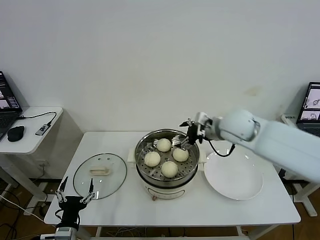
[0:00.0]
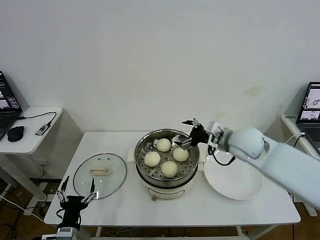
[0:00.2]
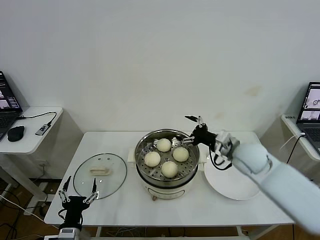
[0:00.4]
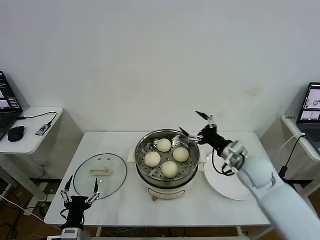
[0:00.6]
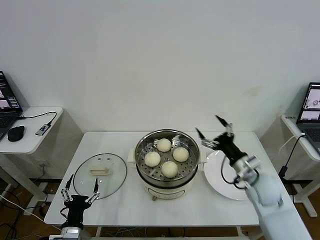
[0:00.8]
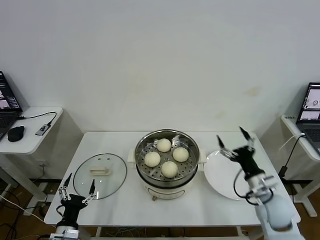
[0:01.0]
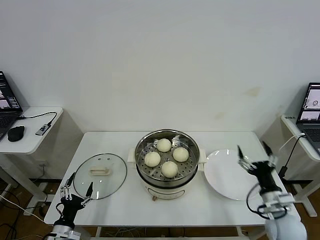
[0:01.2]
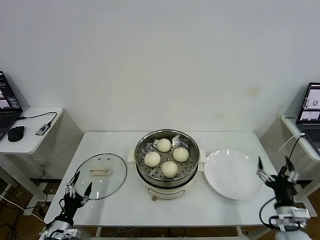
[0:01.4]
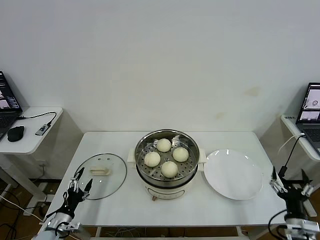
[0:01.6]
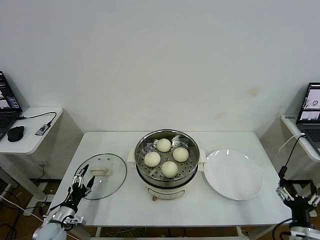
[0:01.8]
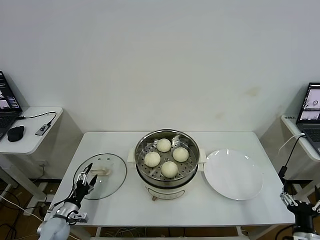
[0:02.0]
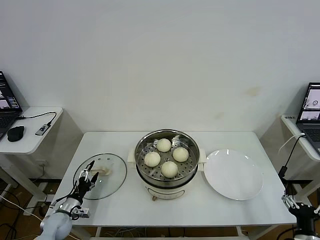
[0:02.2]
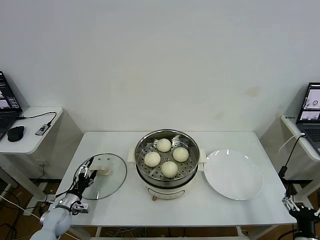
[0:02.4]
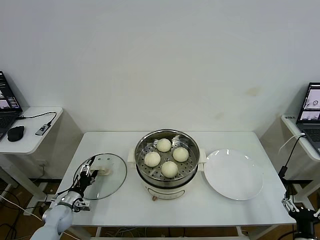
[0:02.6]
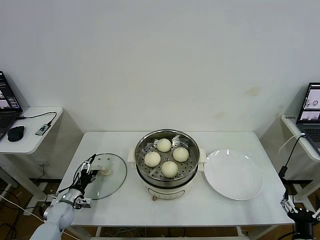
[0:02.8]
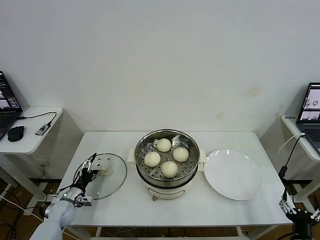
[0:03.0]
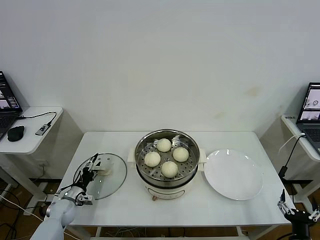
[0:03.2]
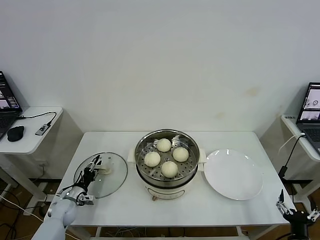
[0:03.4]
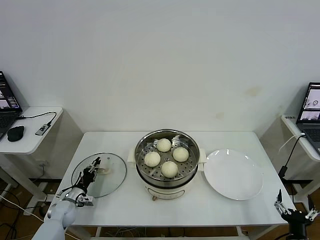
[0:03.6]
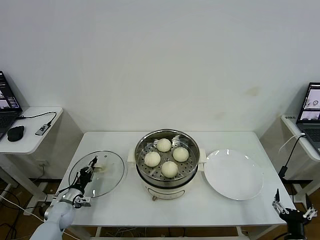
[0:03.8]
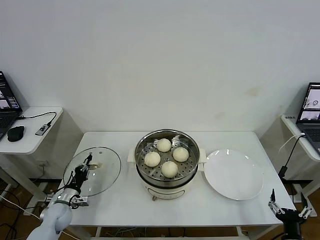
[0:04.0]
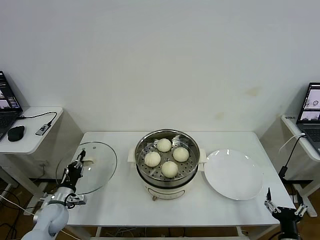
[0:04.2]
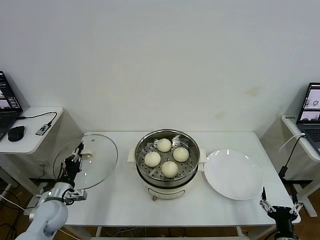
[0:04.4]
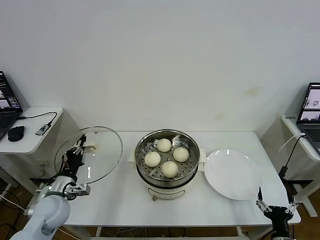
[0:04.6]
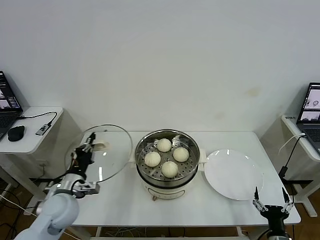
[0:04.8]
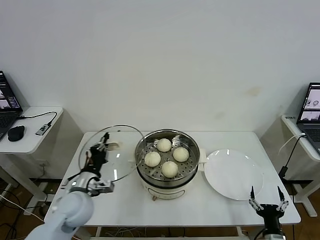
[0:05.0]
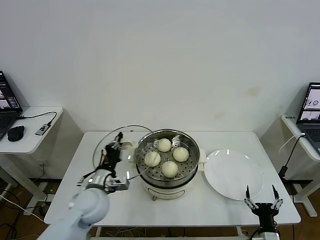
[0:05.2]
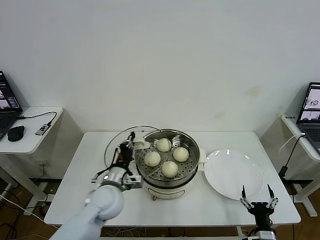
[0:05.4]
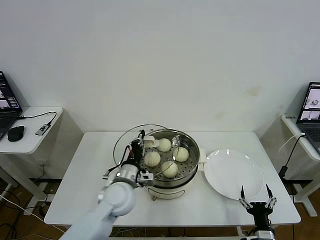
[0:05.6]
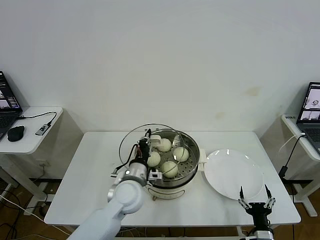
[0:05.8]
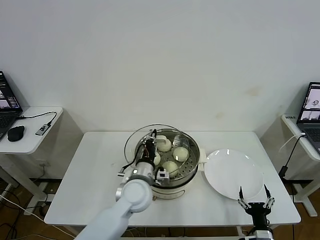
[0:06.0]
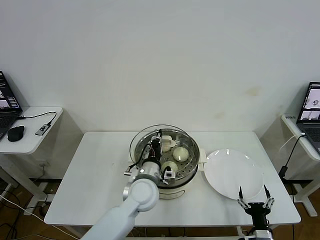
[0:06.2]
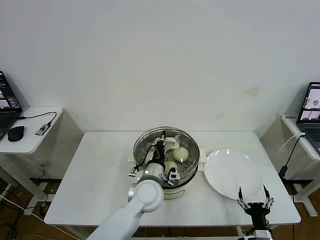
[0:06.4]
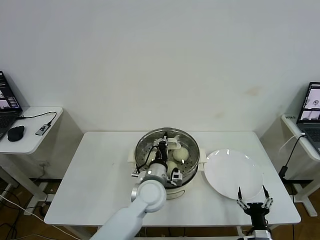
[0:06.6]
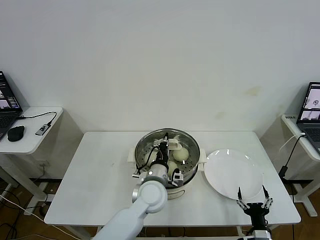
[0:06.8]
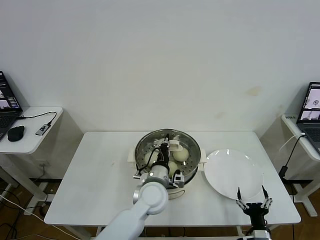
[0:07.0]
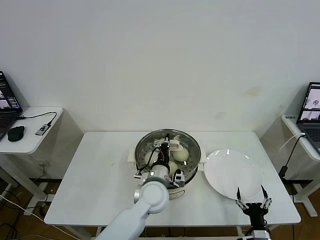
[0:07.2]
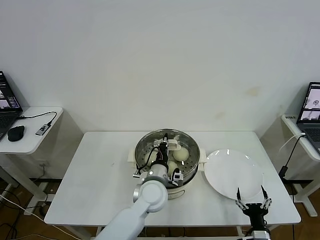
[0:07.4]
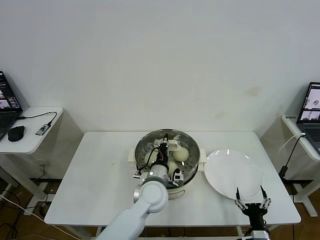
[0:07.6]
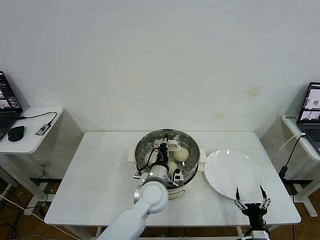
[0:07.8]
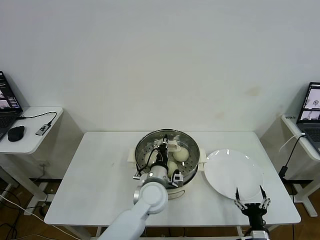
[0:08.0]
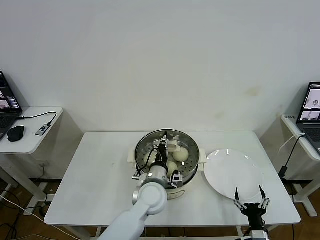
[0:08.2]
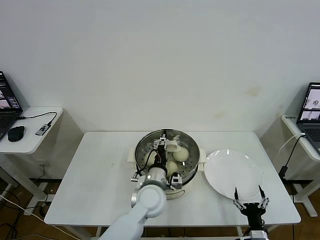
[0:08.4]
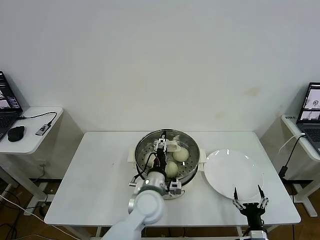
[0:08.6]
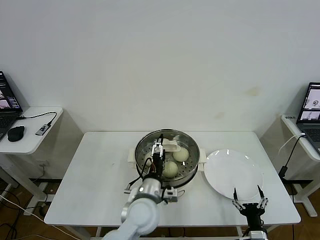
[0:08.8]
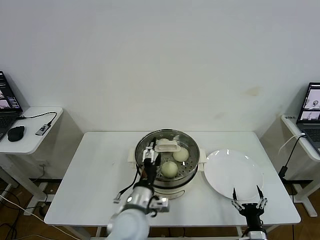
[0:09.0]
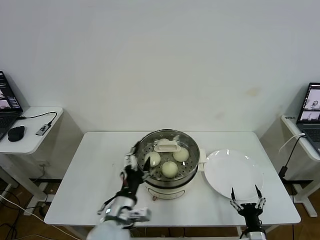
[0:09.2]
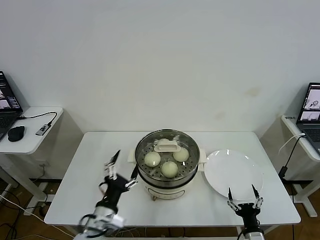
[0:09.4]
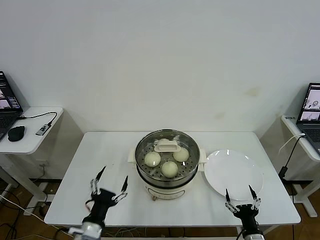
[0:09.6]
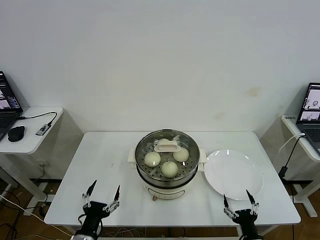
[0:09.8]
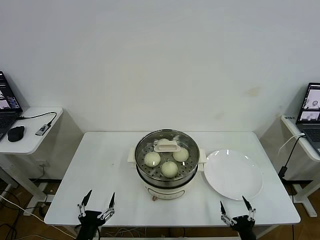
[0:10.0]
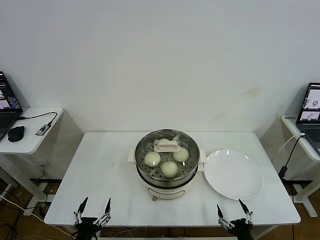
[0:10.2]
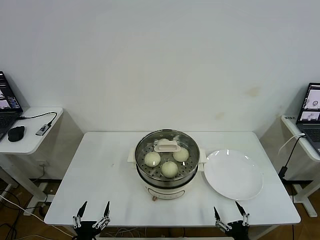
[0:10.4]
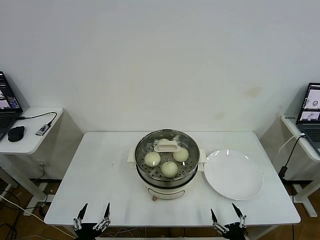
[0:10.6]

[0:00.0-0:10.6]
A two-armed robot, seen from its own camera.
Task of the whole recording: take steamed baozi put them in steamer then cover it.
Step, 0:00.0 to 0:03.8: Grasp the pot lid with left gripper.
Step, 0:04.0 to 0:08.4: Place the pot lid on the steamer with left gripper.
0:00.0 to 0:01.6: The left gripper goes roughly 10 cm to the left, downward and forward; the right gripper moves backward, downward and to the right, about 40 cm.
0:01.6 to 0:03.0: The right gripper is displaced backward by approximately 5 cm. Meanwhile the left gripper heads forward, covering approximately 15 cm.
0:03.0 to 0:04.6: The left gripper shifts roughly 15 cm upward, and closes up.
0:04.6 to 0:06.0: The right gripper moves about 5 cm. Meanwhile the left gripper moves to the right, about 25 cm.
0:06.0 to 0:07.6: The left gripper travels to the right by some 5 cm.
0:07.6 to 0:09.0: The left gripper shifts roughly 10 cm backward, and opens up.
0:09.0 to 0:10.6: The right gripper goes some 5 cm backward, while the left gripper is displaced to the left, backward and downward by about 30 cm.

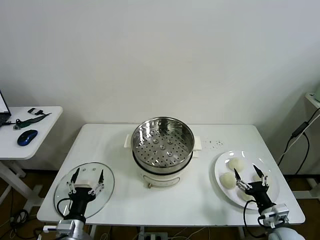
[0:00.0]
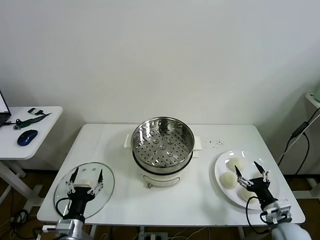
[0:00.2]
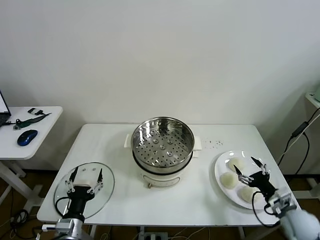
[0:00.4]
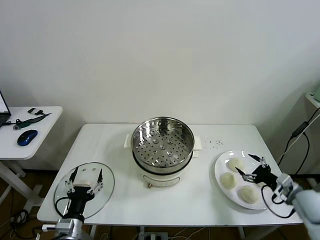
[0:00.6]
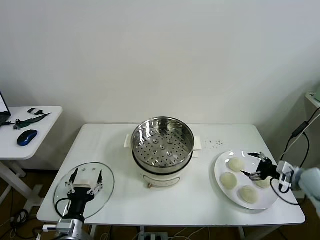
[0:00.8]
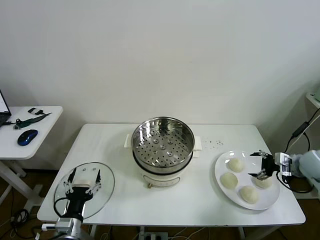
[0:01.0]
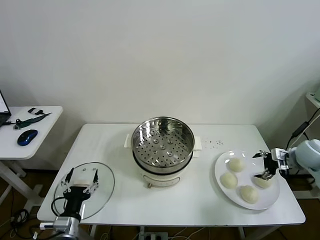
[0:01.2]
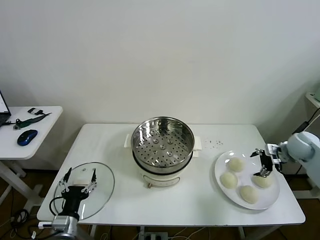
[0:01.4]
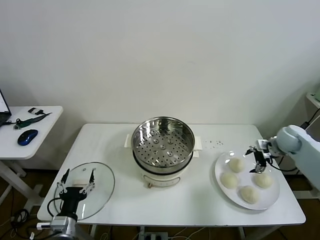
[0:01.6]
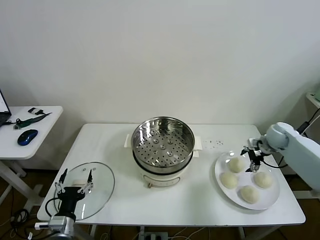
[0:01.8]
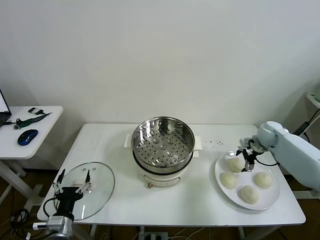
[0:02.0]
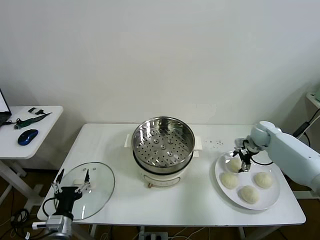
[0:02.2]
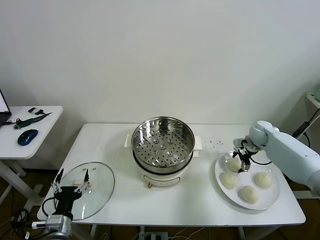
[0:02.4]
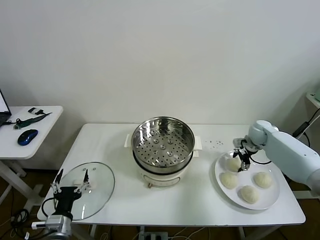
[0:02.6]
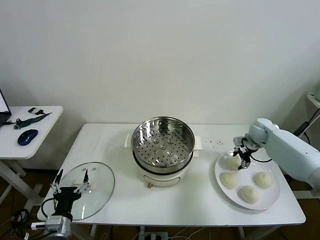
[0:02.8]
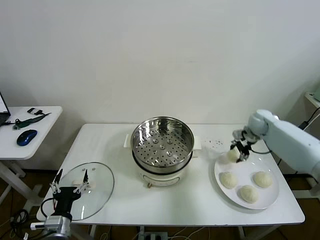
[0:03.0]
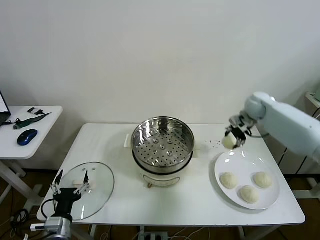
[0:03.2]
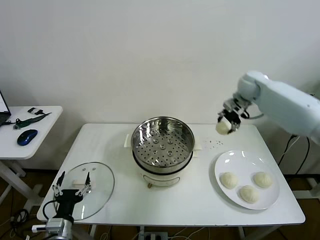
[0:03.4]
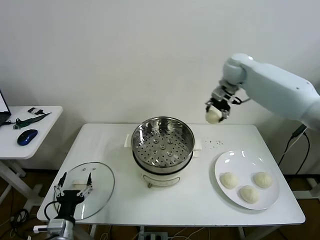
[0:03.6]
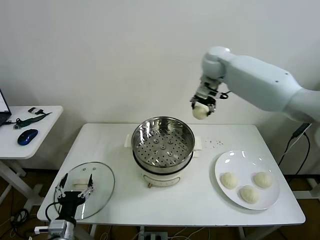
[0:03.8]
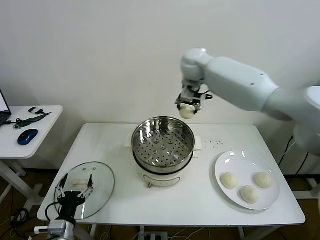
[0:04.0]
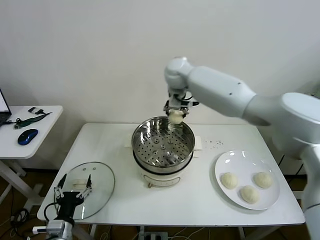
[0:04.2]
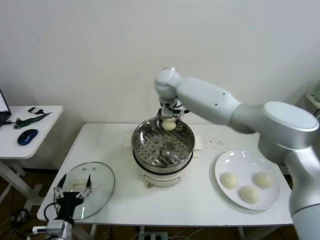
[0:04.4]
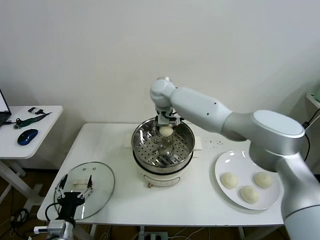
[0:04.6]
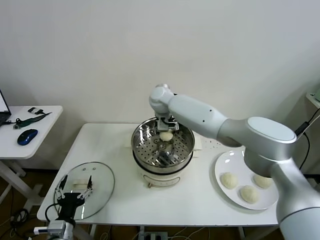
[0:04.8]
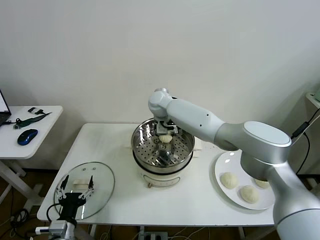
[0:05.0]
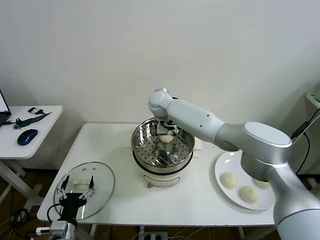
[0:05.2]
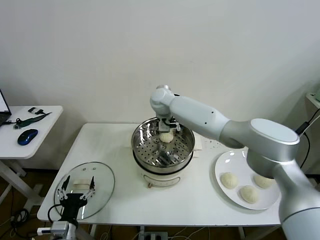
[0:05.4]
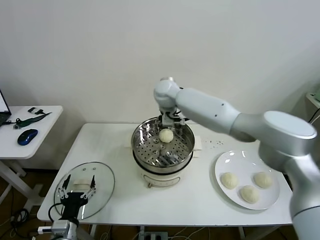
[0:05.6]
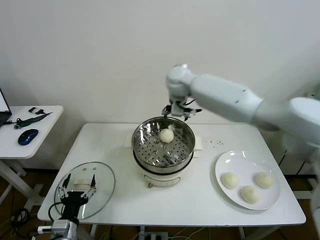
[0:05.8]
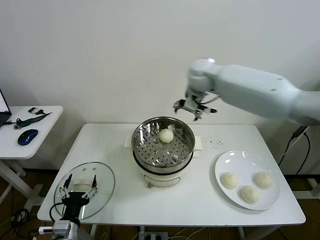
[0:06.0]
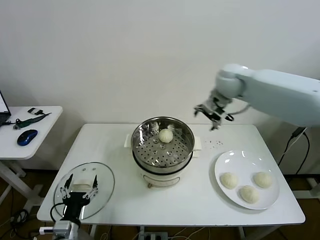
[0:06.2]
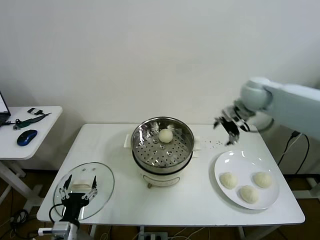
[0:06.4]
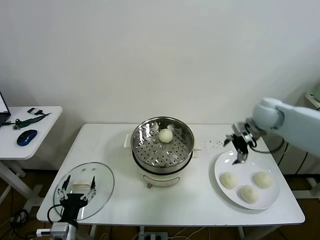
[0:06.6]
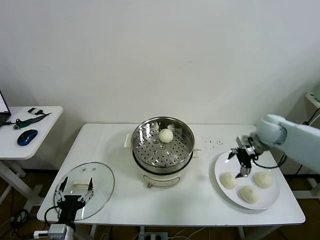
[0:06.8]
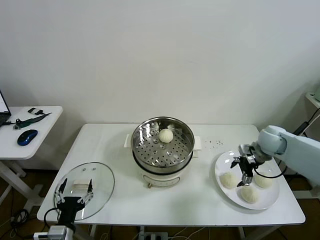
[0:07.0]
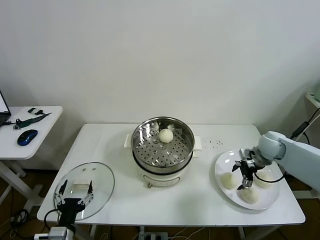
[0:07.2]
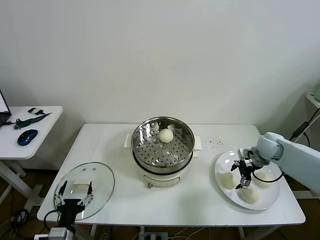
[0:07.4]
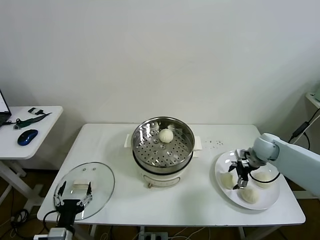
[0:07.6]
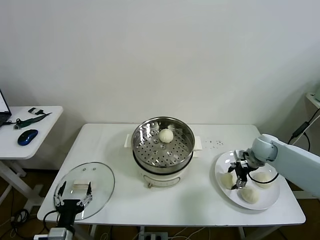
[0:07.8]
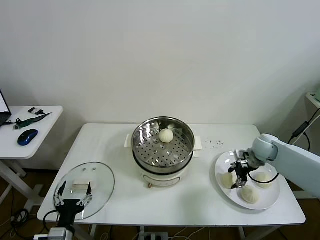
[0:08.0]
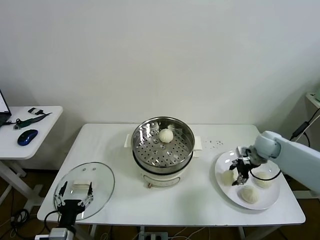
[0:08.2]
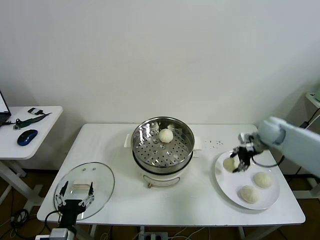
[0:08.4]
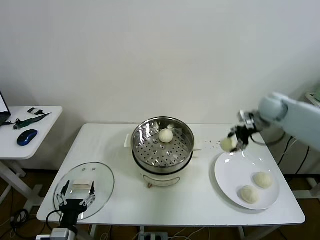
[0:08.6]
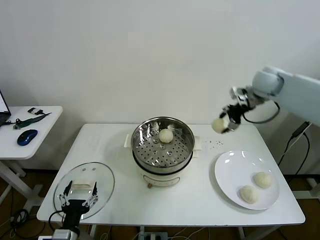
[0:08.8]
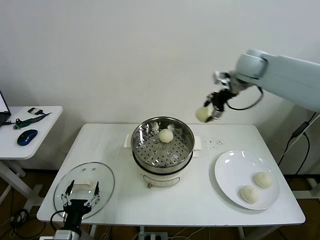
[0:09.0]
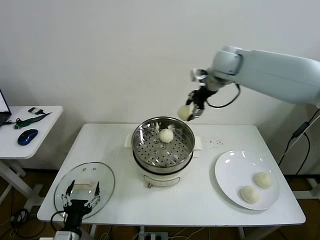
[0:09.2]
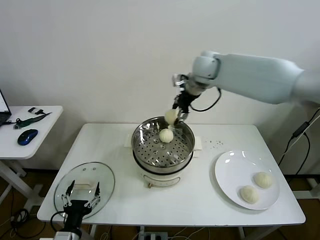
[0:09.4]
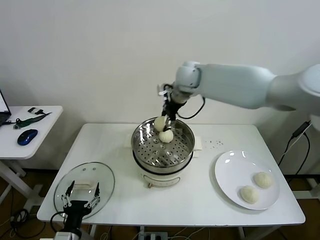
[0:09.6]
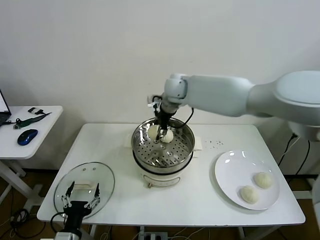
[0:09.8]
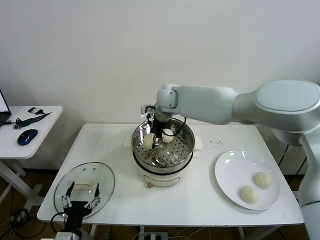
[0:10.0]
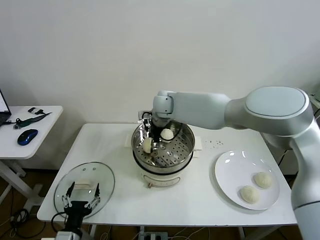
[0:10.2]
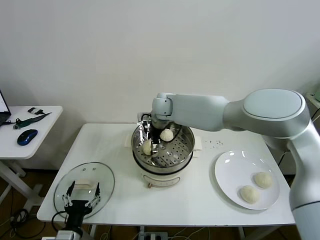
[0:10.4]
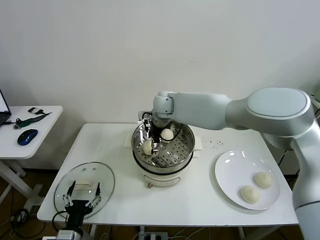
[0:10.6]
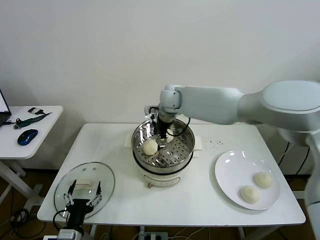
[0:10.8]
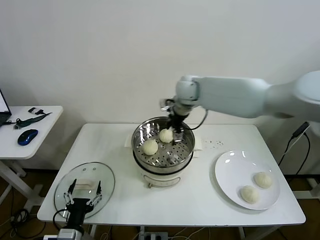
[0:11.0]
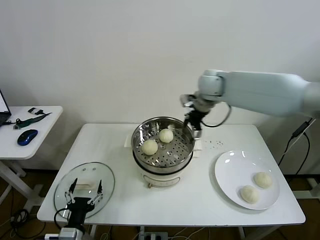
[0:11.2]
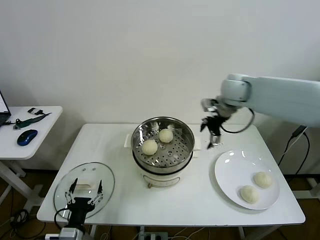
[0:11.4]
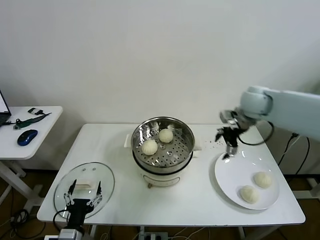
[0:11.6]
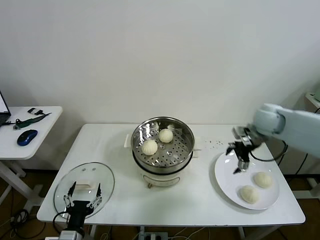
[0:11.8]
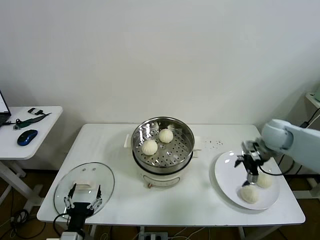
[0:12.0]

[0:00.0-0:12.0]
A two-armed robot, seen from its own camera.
Task of the whole recording: take steamed baozi put them in steamer then cover it.
Step, 0:00.0 to 0:02.6: Grasp the baozi in the plate with right gripper.
Step, 0:02.8 to 0:05.2: Place the baozi on the steamer with right gripper.
Step, 0:05.4 to 0:08.0: Grasp the baozi in the plate with right gripper.
Step, 0:08.2 to 0:10.4: Place the baozi on the steamer with right gripper.
0:01.6 to 0:03.0: The right gripper heads to the left, forward and upward, covering approximately 15 cm, and closes.
0:03.0 to 0:04.4: The right gripper goes about 35 cm to the left.
0:04.4 to 0:06.0: The right gripper moves to the right and upward, roughly 20 cm, and opens up.
0:06.0 to 0:07.6: The right gripper travels downward and to the right by about 35 cm.
0:07.6 to 0:09.0: The right gripper heads upward and to the left, covering roughly 35 cm, and closes its fingers.
0:09.0 to 0:10.4: The right gripper goes roughly 30 cm to the left and downward, and opens.
0:10.4 to 0:12.0: The right gripper shifts about 40 cm to the right.
